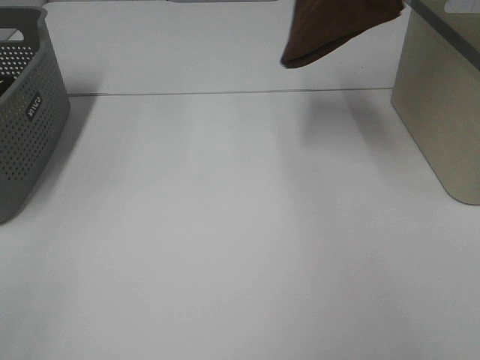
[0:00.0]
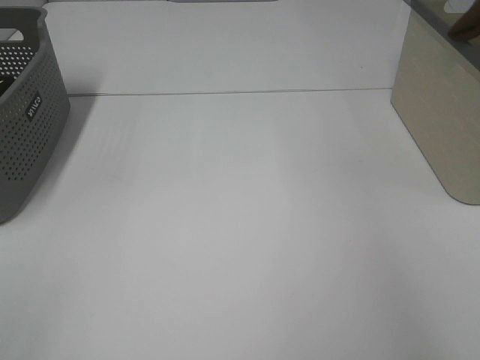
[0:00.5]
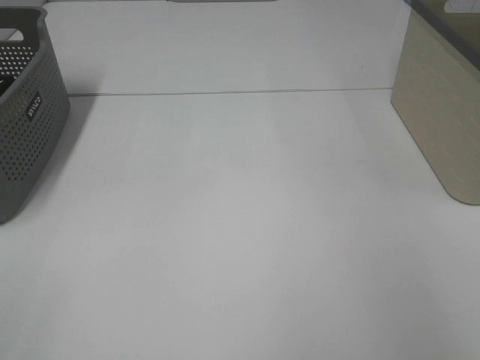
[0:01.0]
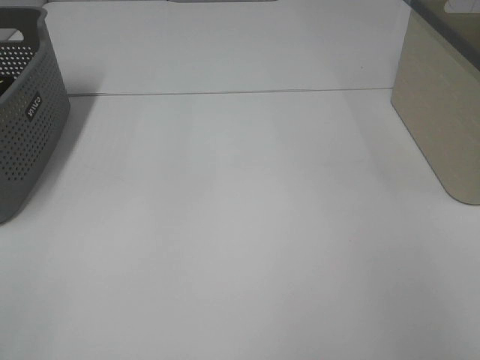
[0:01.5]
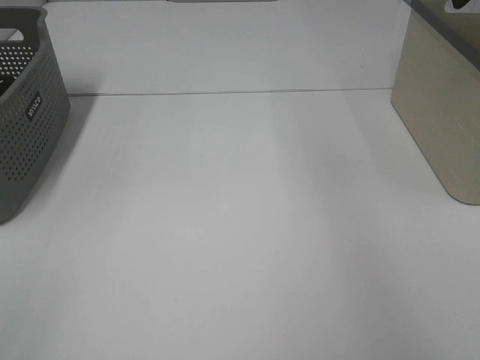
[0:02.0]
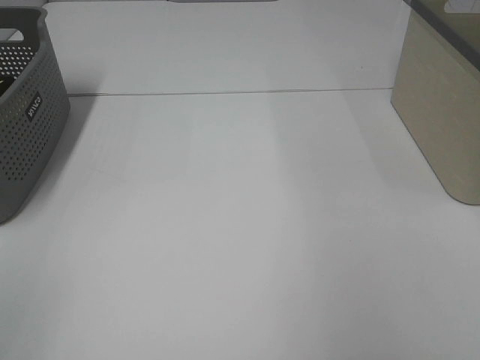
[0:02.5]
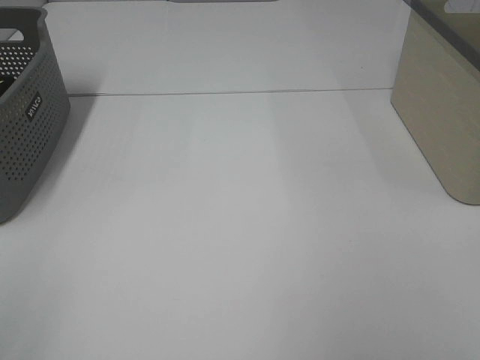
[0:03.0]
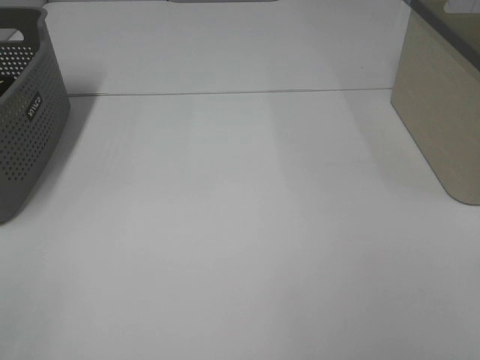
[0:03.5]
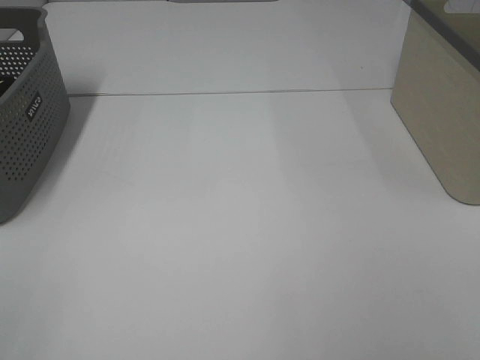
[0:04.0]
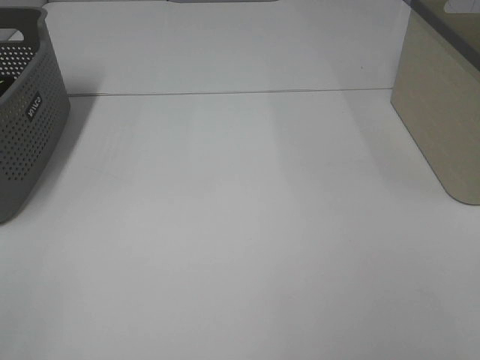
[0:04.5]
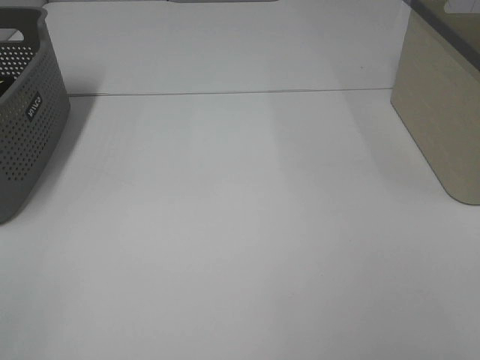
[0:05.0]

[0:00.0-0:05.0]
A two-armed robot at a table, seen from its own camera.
Step, 0:00.0 to 0:01.5: Right hand: place the brown towel in right basket.
0:00.0 to 0:02.5: The right gripper is displaced backward and to the right by some 20 cm, and opens its fingers.

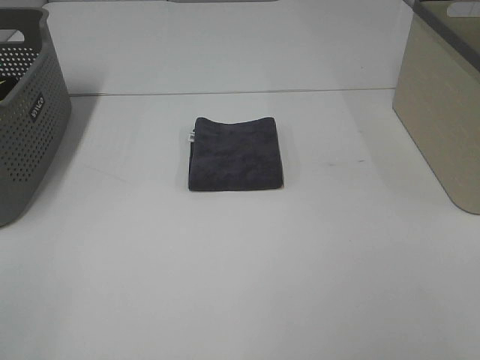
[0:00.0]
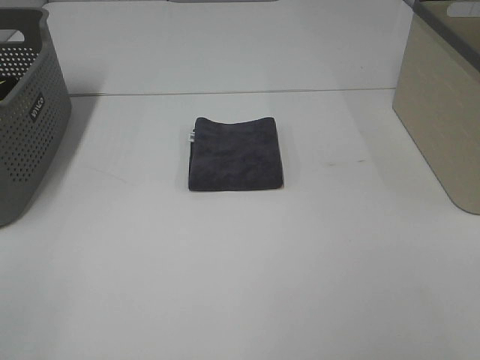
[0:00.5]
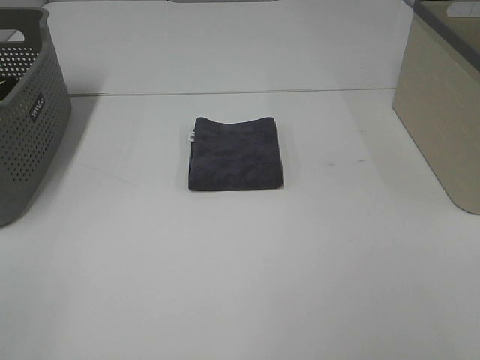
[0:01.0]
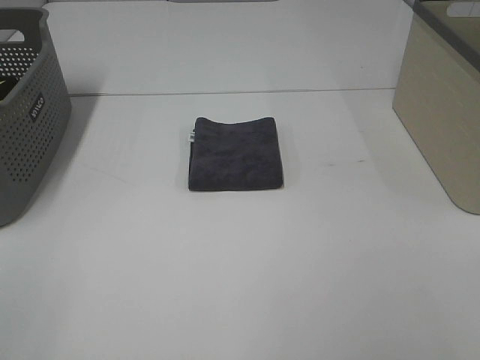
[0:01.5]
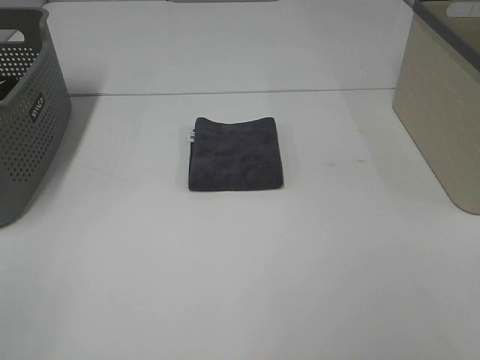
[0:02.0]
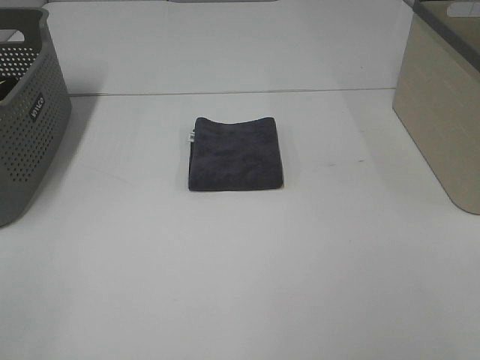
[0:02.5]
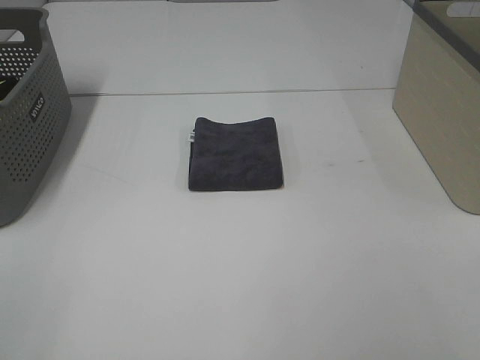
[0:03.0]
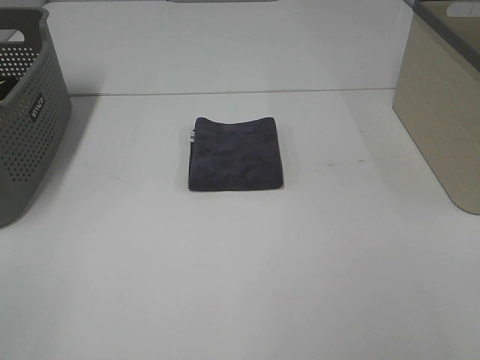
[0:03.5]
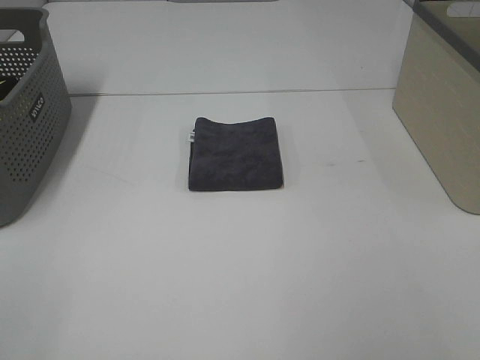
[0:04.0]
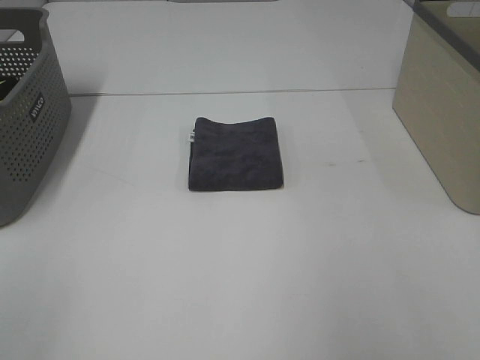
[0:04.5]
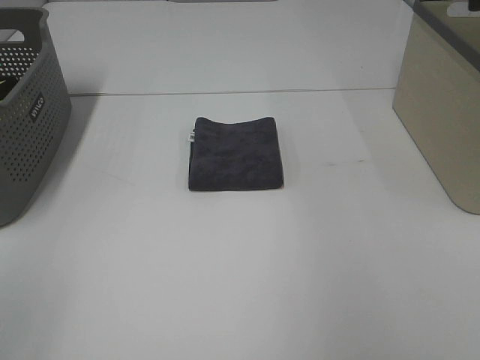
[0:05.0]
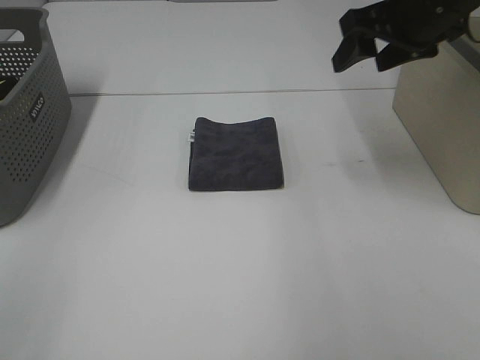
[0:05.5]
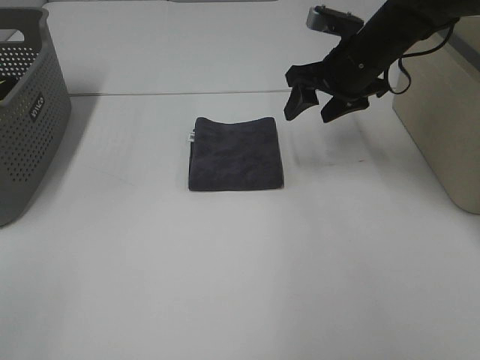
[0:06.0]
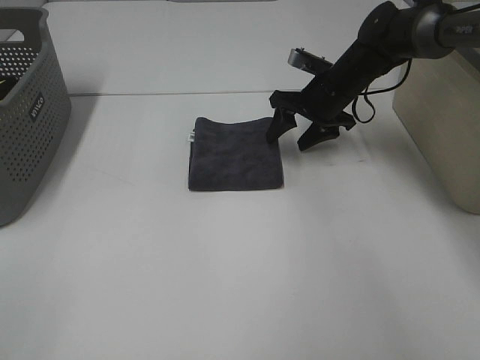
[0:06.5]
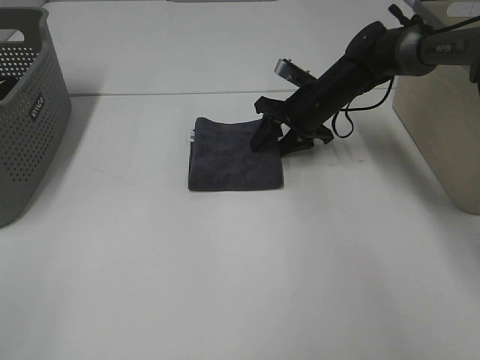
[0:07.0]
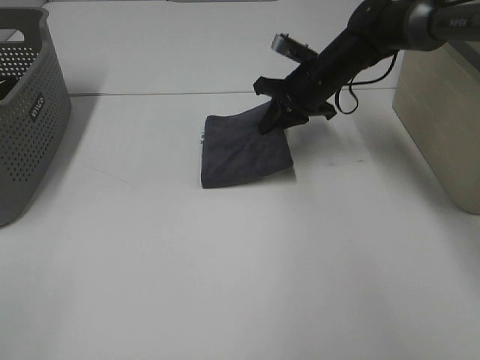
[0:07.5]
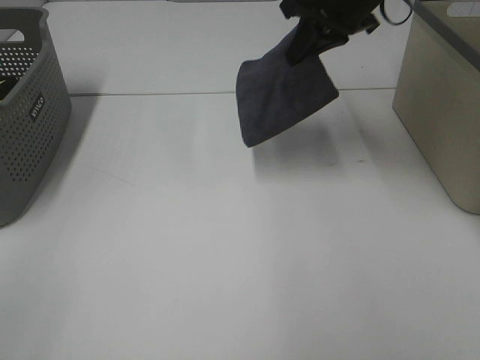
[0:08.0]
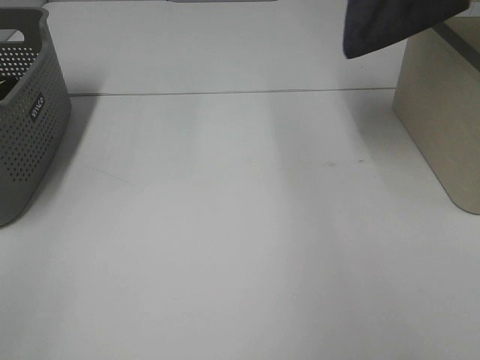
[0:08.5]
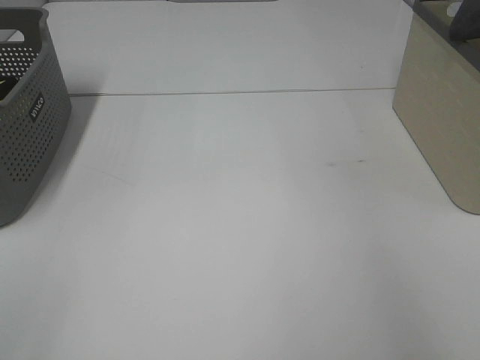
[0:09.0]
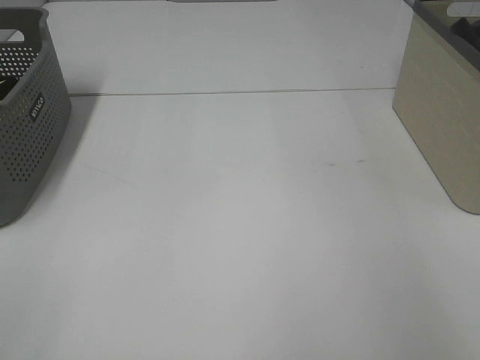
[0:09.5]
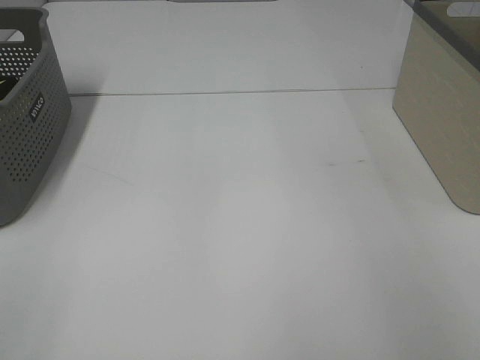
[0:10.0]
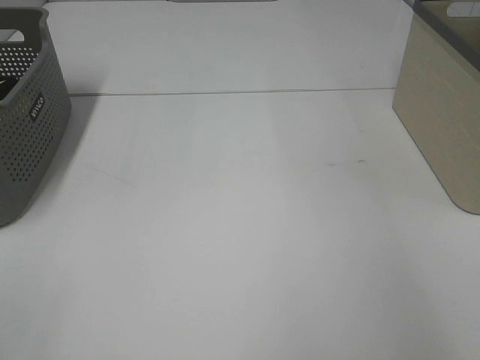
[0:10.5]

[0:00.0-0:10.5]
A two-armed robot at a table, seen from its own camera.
Step, 0:00.0 to 0:07.0: Right hand: grab the folded grey towel.
Step, 0:07.5 to 0:10.0: Right hand: place the grey towel in right basket.
0:00.0 to 0:02.0: Both grippers stay put.
0:04.0 to 0:06.5: The right gripper travels forward and downward by approximately 50 cm.
0:06.5 to 0:08.5: The right gripper shifts some 30 cm upward and to the right, and closes up.
0:08.5 to 0:10.5: The right gripper heads to the right, covering approximately 10 cm, and opens up.

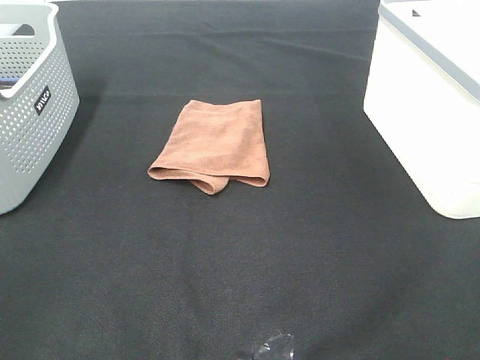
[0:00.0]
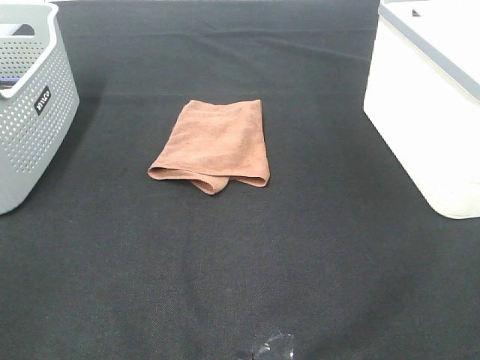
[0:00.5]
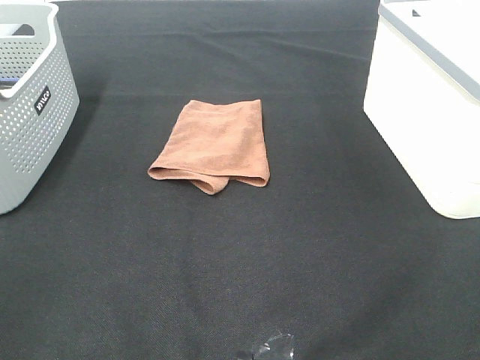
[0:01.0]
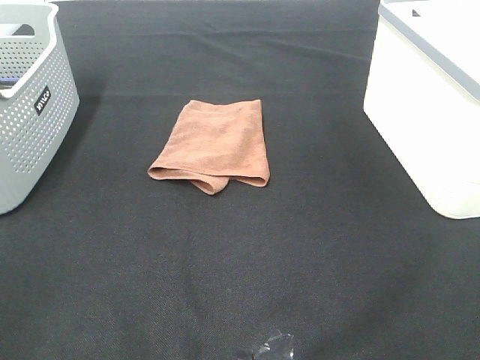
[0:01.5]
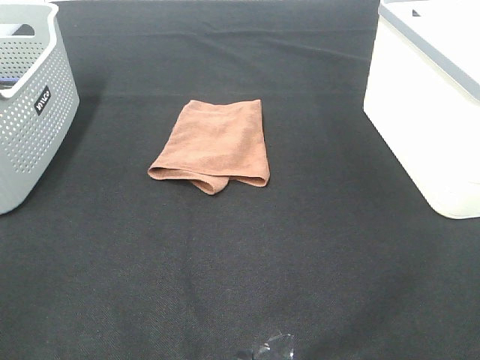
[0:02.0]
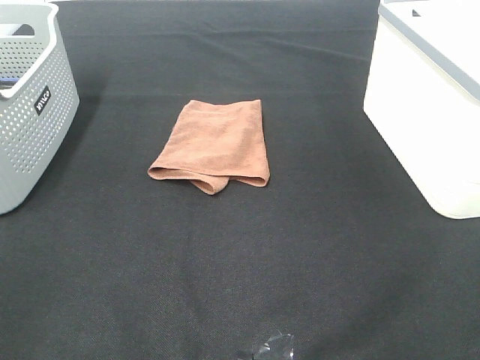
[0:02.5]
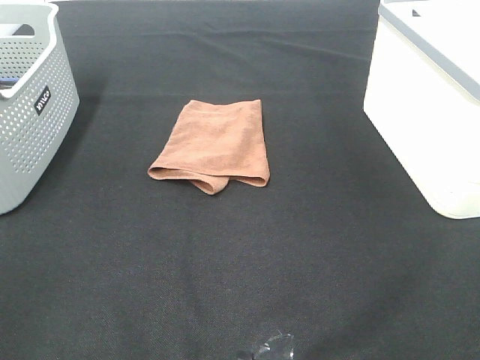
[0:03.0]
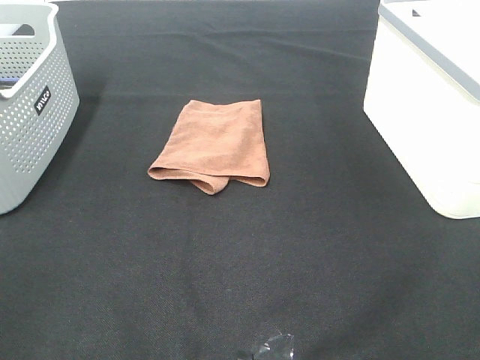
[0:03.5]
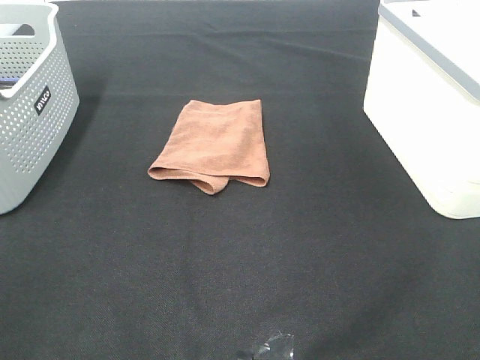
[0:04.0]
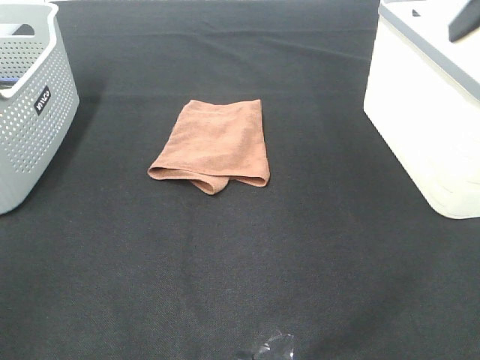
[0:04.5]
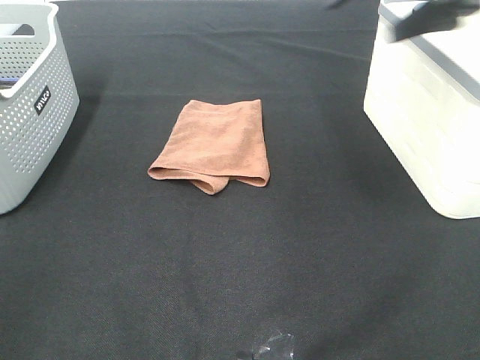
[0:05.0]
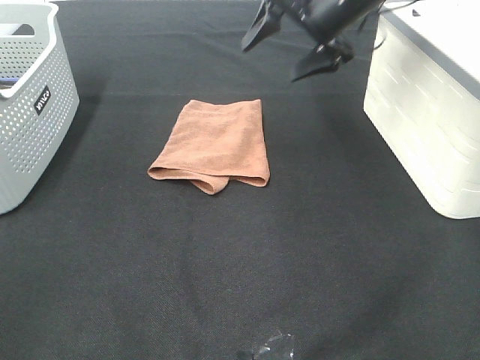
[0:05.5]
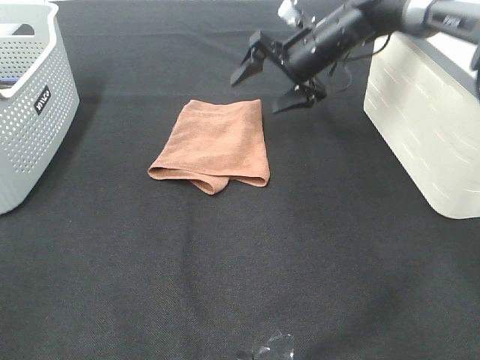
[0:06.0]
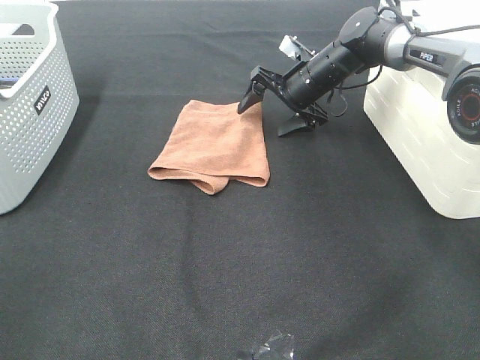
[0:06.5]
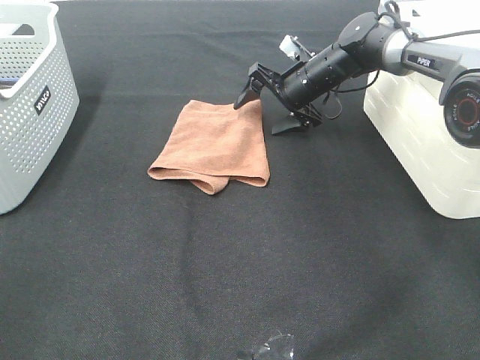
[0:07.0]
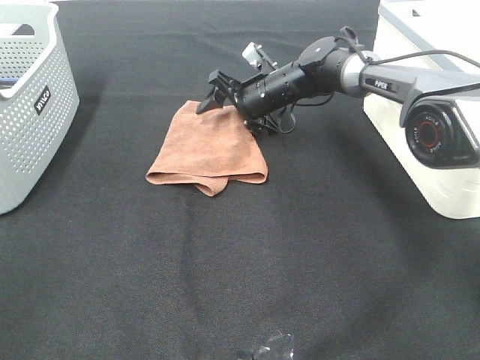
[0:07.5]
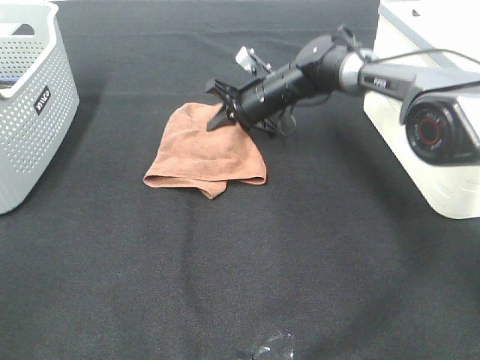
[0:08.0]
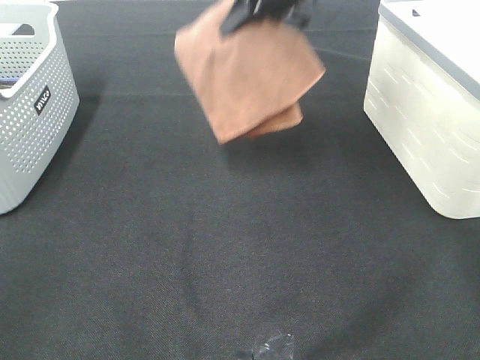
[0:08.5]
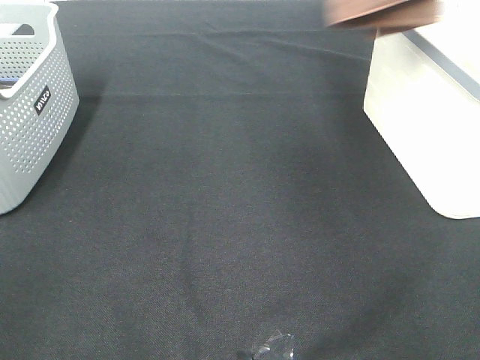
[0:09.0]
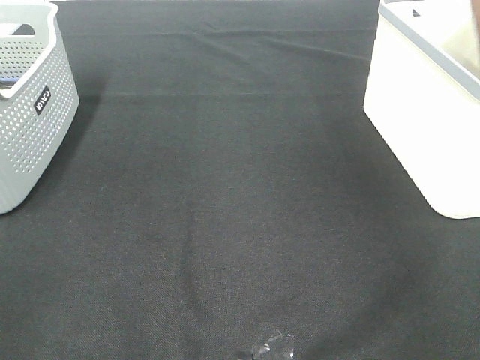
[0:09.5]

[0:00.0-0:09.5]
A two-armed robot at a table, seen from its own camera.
Step, 0:00.0 to 0:07.5: Right hand: grab the folded brown towel.
0:00.0 to 0:02.0: Both grippers stay put.
0:04.0 to 0:05.5: The right gripper goes some 40 cm forward and to the left.
0:05.5 to 0:07.5: The right gripper shifts approximately 20 cm downward and to the left.
0:07.5 to 0:09.5: The right gripper shifts about 50 cm to the right and upward, and closes up.

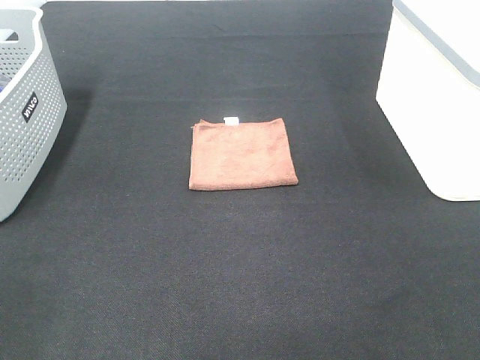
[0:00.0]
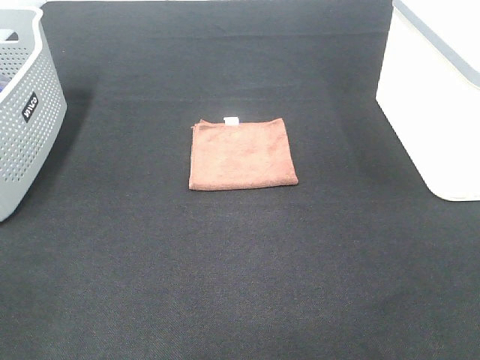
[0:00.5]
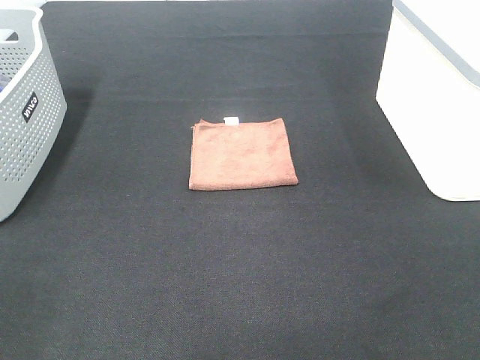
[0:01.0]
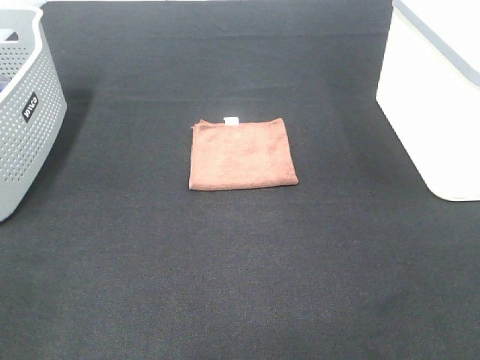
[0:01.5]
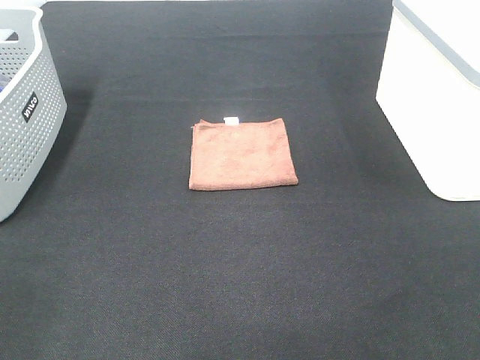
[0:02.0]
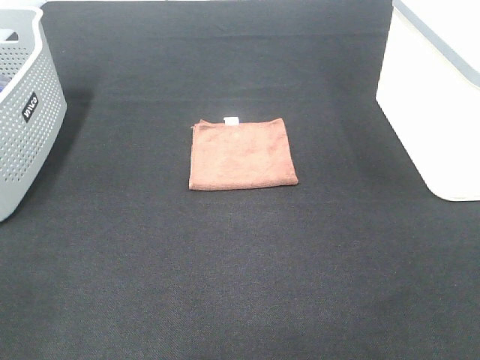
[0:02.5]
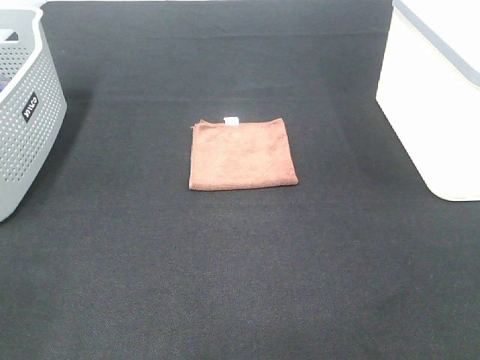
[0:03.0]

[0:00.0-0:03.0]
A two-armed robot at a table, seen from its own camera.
0:00.0 to 0:03.0: Both grippers stay put.
